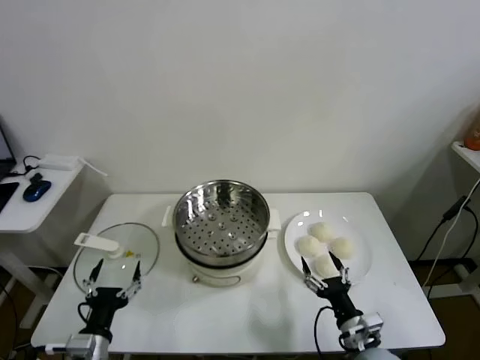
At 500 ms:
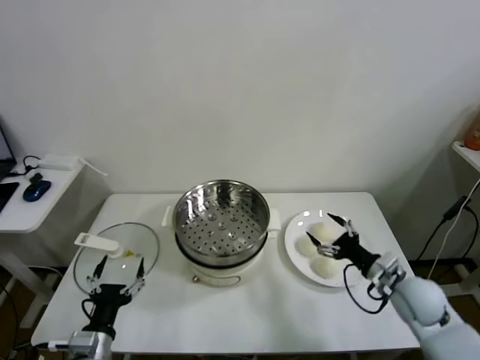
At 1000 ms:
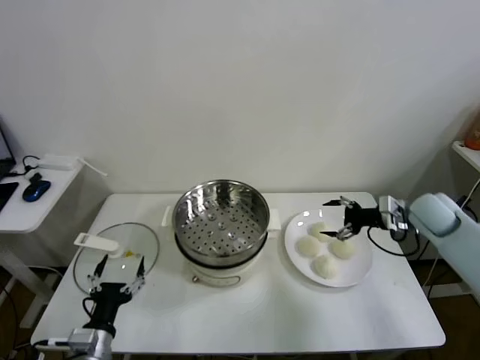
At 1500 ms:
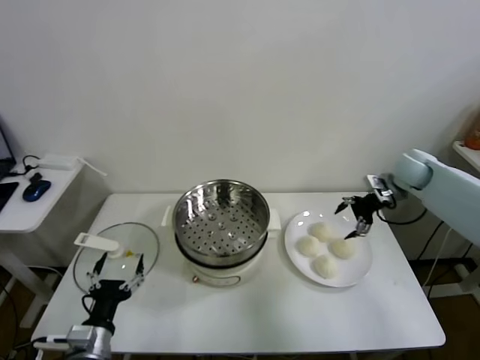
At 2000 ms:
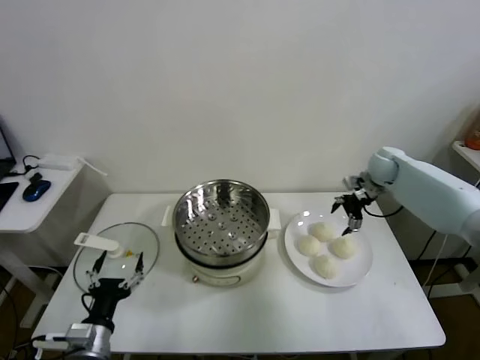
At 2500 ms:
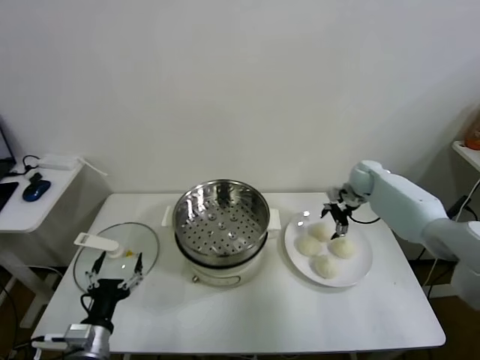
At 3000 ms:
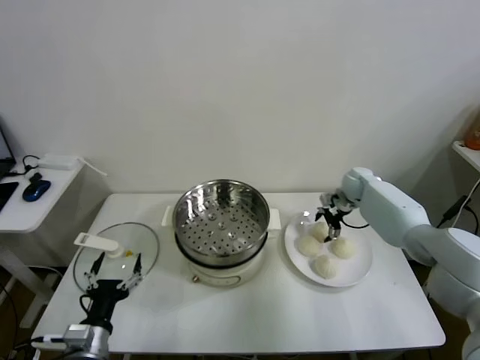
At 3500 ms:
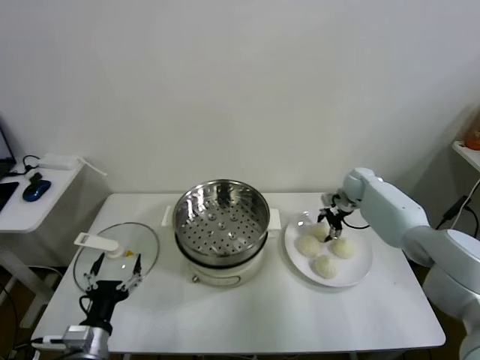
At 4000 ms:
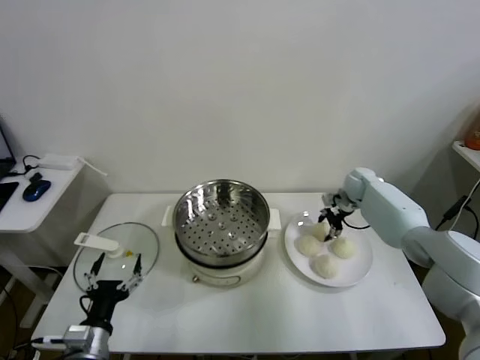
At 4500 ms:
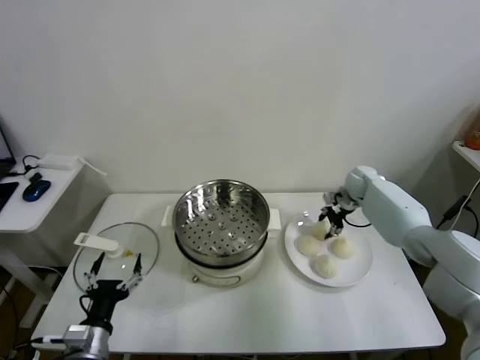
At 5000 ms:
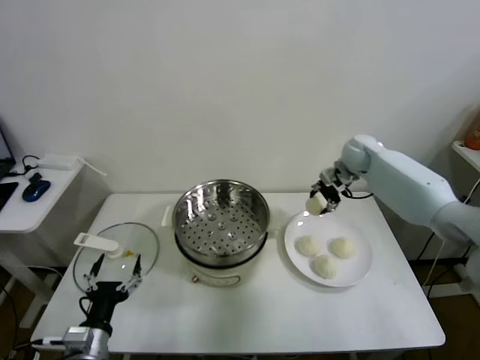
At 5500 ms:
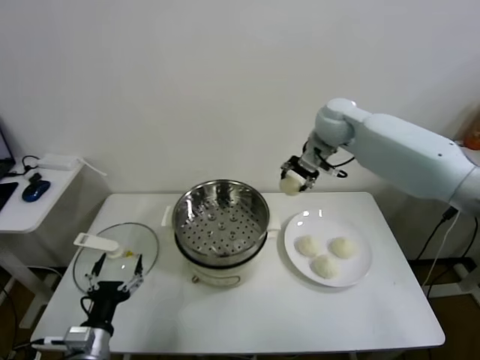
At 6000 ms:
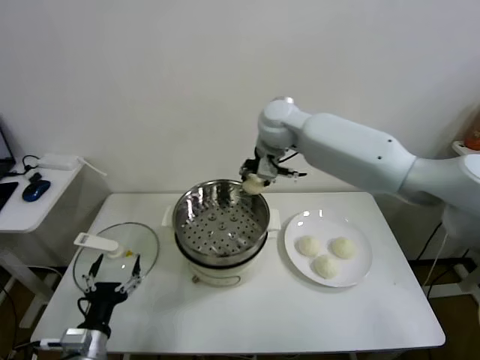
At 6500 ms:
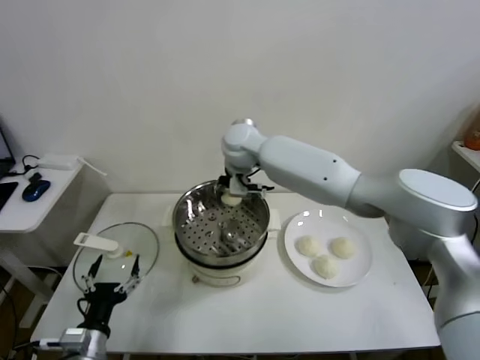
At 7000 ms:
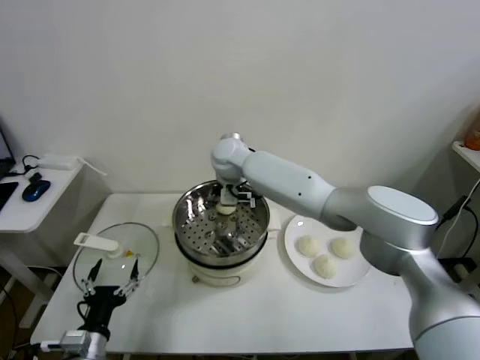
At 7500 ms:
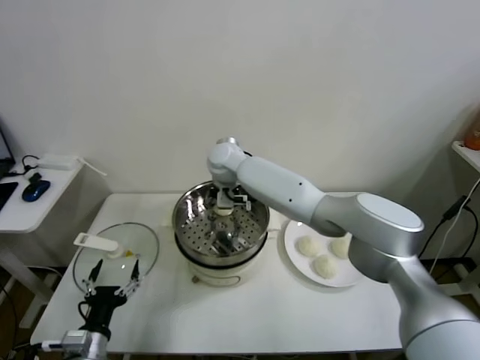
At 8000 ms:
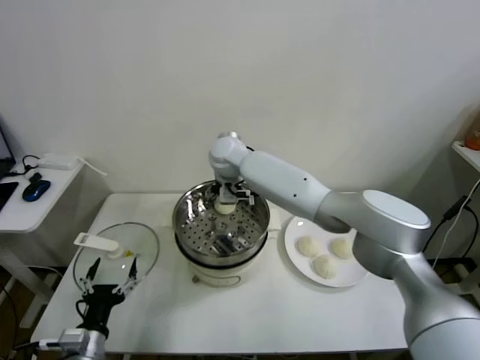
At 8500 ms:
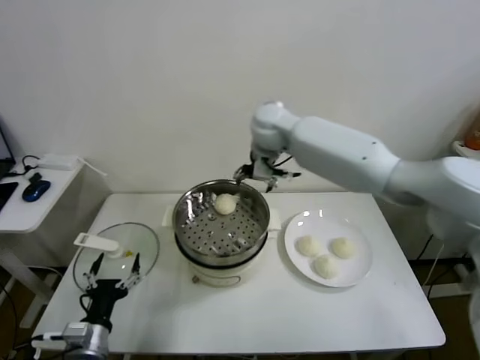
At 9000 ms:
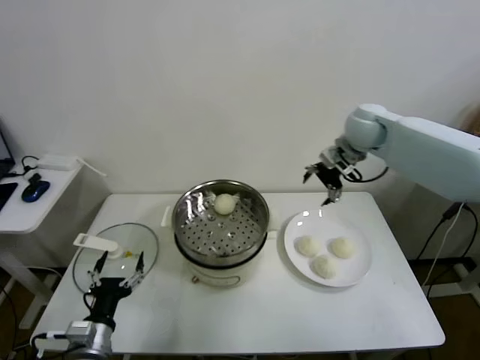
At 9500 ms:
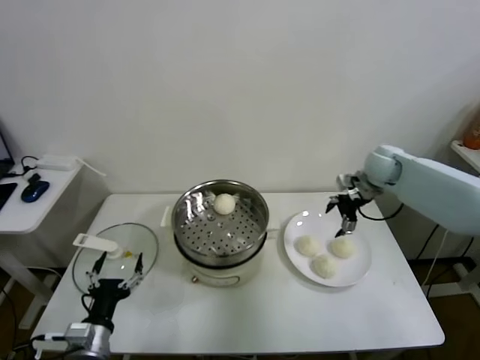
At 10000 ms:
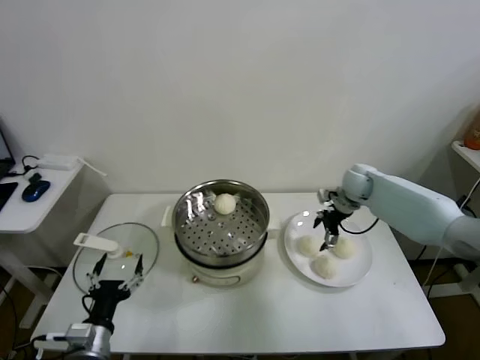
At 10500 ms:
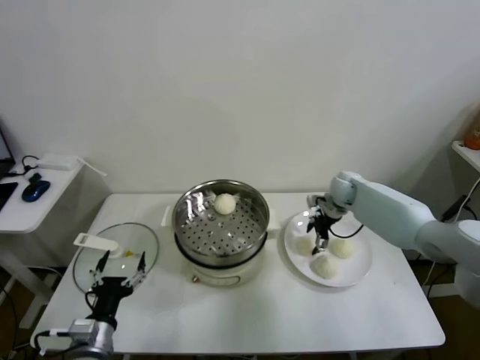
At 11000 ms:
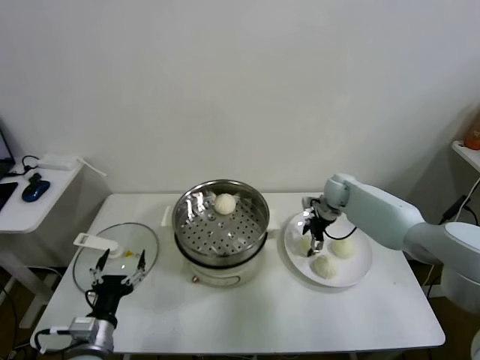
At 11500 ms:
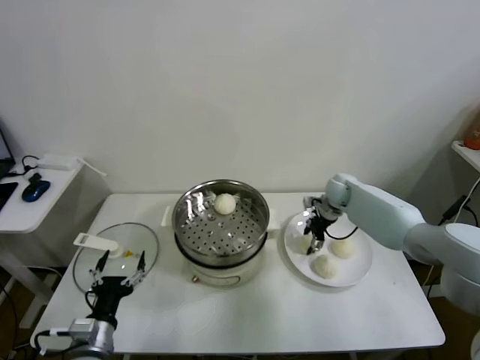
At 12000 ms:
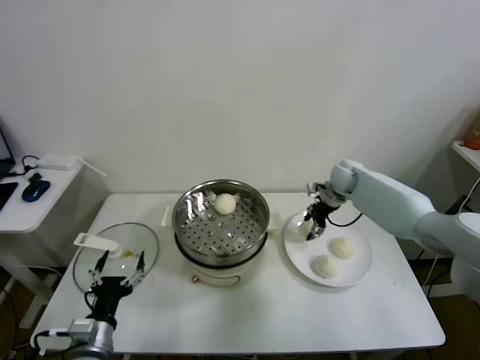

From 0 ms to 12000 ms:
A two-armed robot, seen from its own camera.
Task of the whole recording: take steamed baozi put them in steamer.
Step, from 0 ms to 3500 ms: Grasp the baozi in the plate with right gripper.
Step, from 4000 ms to 8000 ms: Place the baozi on the steamer with right gripper.
Step, from 8500 ms to 11500 ms: Grasp the baozi in the plate with right gripper.
From 2000 ms to 4000 ms: The right gripper shifts approximately 10 cm downward, and closes.
From 4000 ms to 6000 ms: The right gripper goes about 35 cm to the left and upward.
From 6000 ms to 8000 ms: The right gripper heads to the left and downward, covering approximately 10 cm, and opens.
From 8000 ms to 10000 ms: The right gripper shifts approximately 35 cm to the right.
From 10000 ms to 12000 ms: The right gripper closes its fingers.

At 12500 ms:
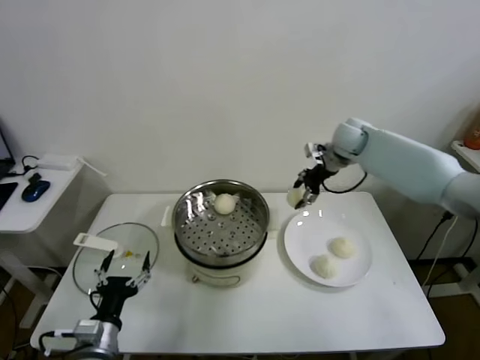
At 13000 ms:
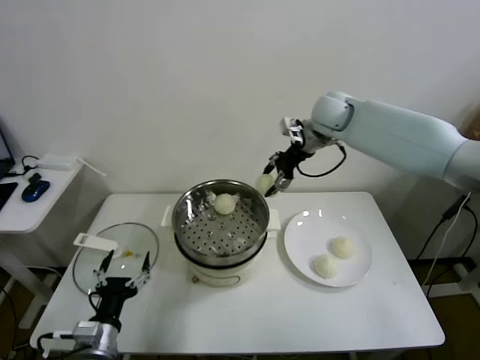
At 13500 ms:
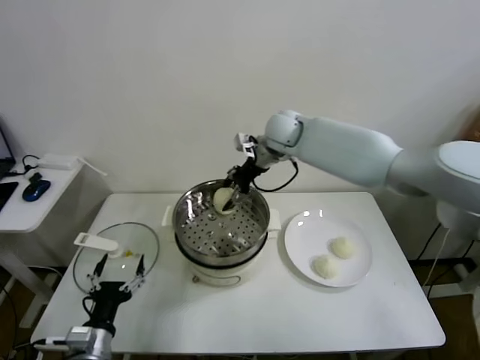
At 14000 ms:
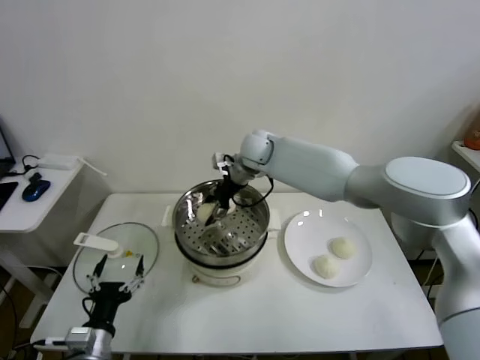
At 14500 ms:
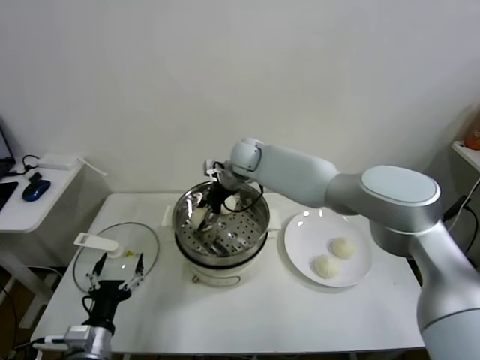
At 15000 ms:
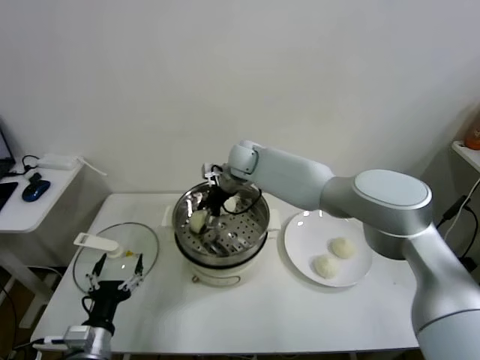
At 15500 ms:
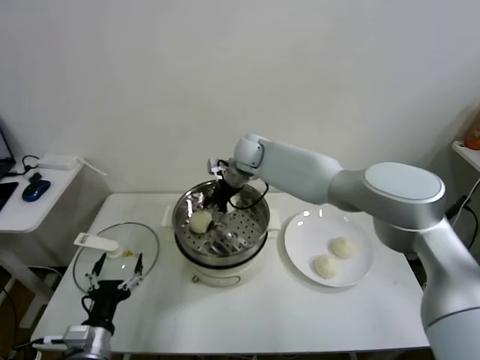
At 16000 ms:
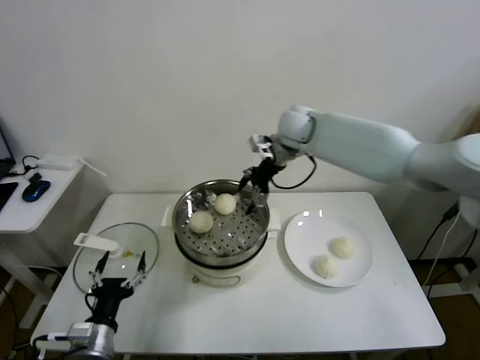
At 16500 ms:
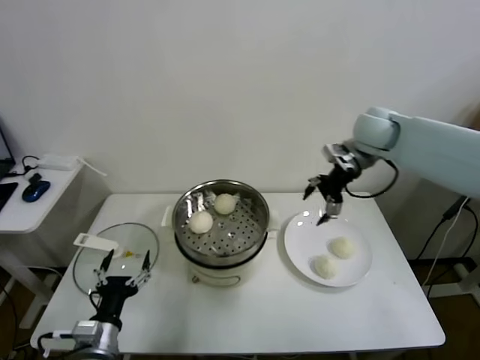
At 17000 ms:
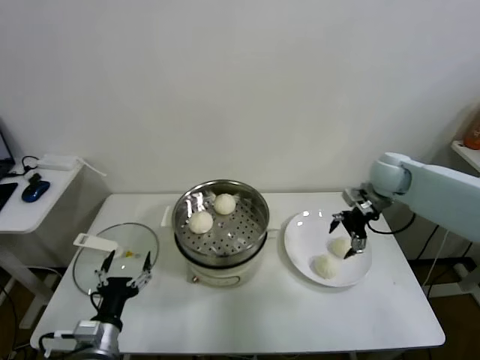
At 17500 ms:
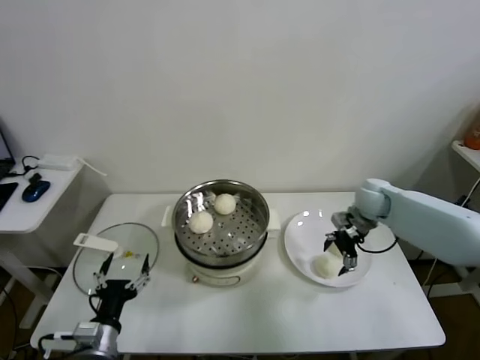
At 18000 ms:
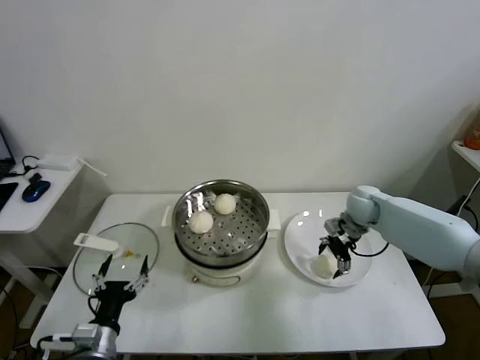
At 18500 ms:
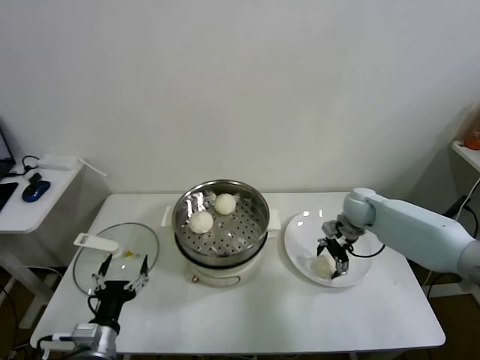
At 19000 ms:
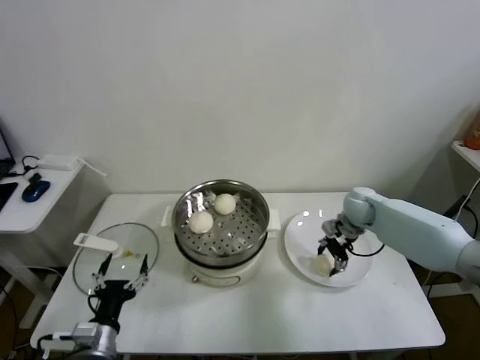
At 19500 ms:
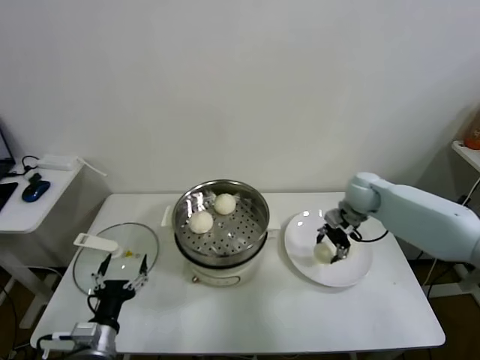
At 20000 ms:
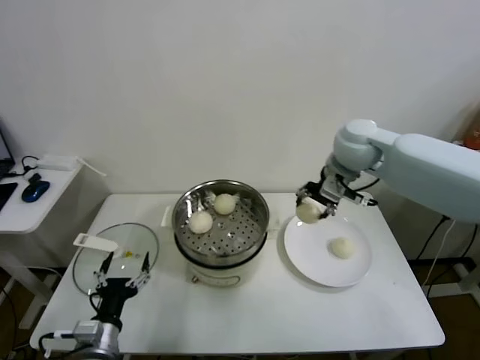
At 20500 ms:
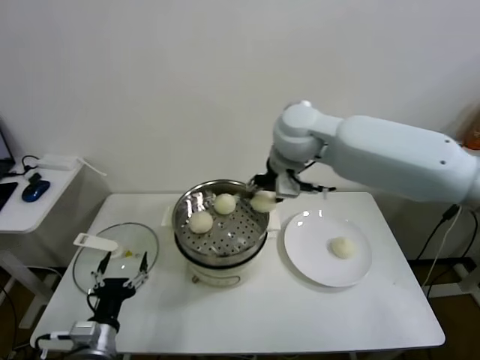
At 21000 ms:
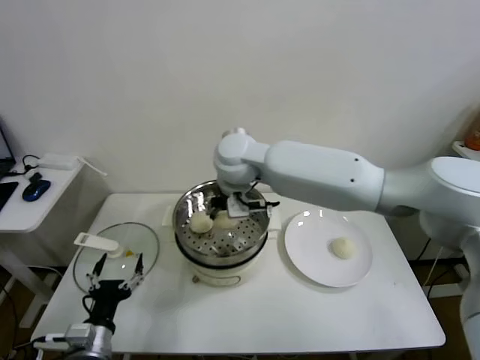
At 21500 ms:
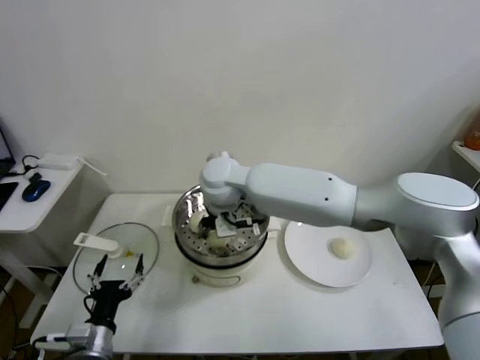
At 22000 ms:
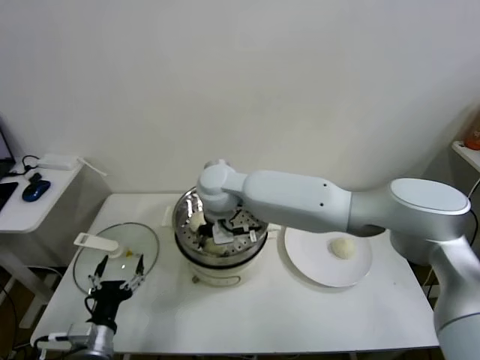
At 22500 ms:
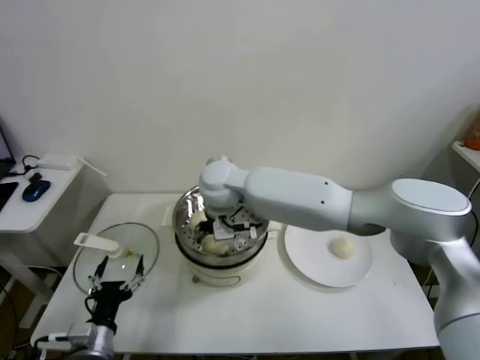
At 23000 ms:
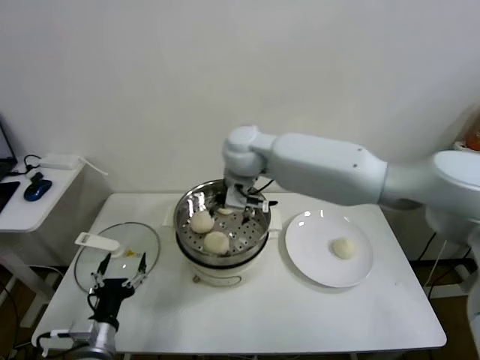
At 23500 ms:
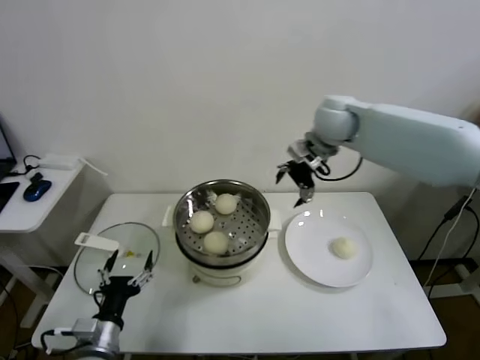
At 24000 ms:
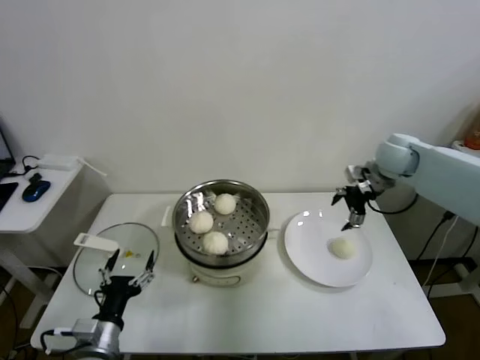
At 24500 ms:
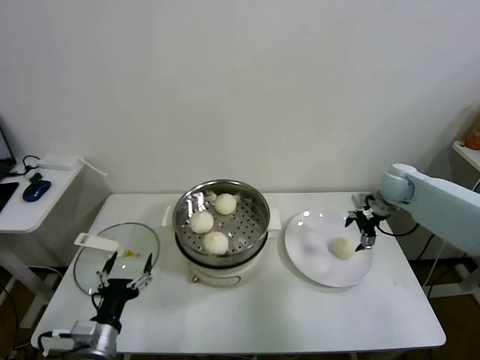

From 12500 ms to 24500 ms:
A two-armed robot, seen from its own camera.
Task of the whole recording: take steamed baozi put them in steamer.
Step, from 12500 ms to 15500 ms: Place the baozi on the steamer with right gripper.
Step, from 16000 ms to 18500 ms: Grasp the baozi in the plate with right gripper.
Step, from 19500 ms to 22500 ms: Place the baozi on the steamer with right gripper.
From 12500 ms to 14500 ms: The right gripper heads to the left, covering about 25 cm.
From 14500 ms to 16500 ms: The right gripper shifts approximately 30 cm to the right, and opens.
From 16500 ms to 18500 ms: The right gripper moves downward, about 20 cm.
From 18500 ms to 20500 ms: The right gripper moves upward and to the left, roughly 35 cm, and closes its fingers.
From 20500 ms to 22500 ms: The right gripper is displaced to the left and downward by some 20 cm, and opens up.
From 22500 ms to 24500 ms: The right gripper travels to the right by approximately 40 cm.

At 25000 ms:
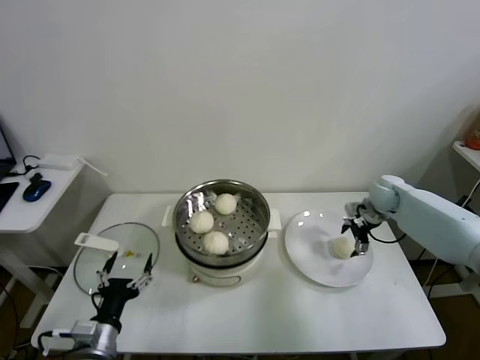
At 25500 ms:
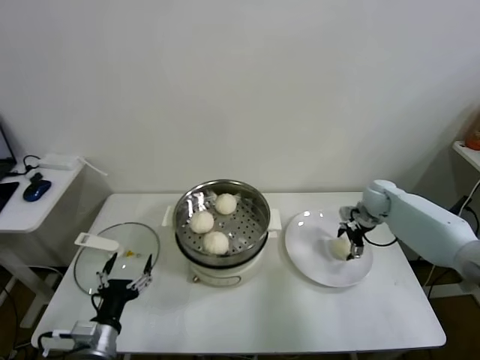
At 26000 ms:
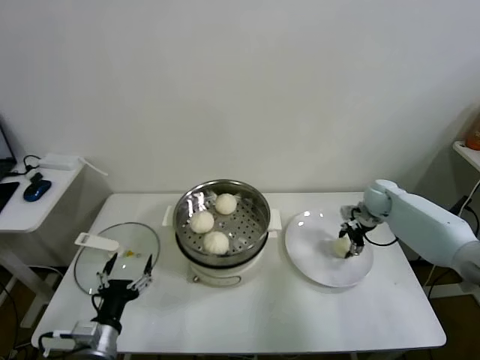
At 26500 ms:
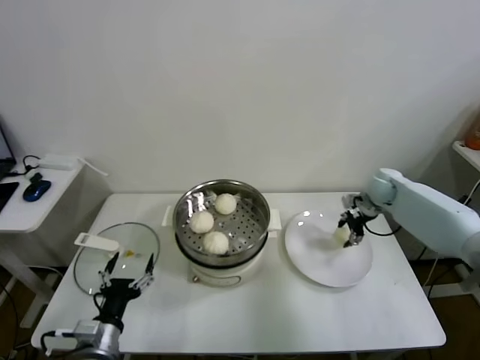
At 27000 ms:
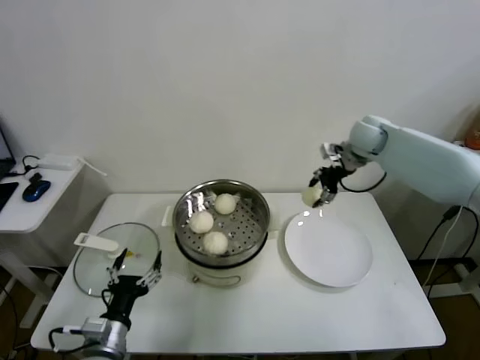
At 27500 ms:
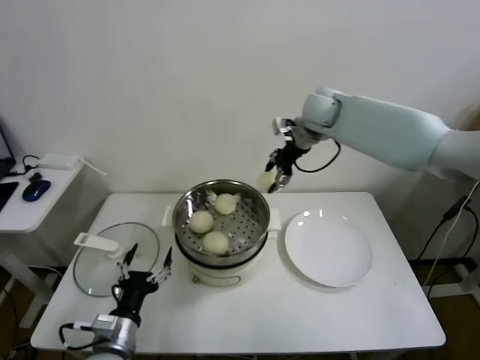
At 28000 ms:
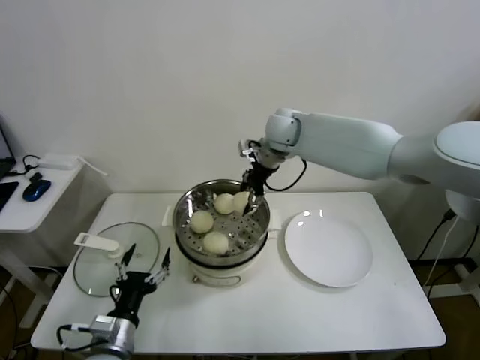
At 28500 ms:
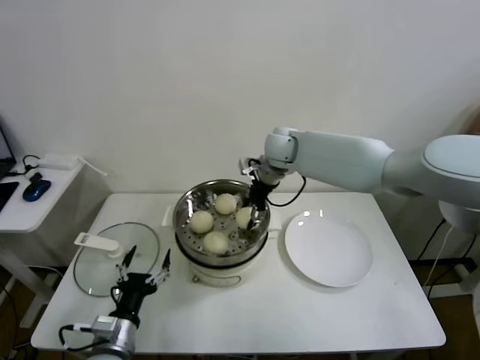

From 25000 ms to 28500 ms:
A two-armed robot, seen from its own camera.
Task of the whole recording: take steamed baozi put them in steamer.
From 25000 ms to 27000 ms: The right gripper heads upward and to the left, covering about 15 cm, and closes its fingers.
From 27000 ms to 28500 ms: The right gripper goes roughly 20 cm to the left.
